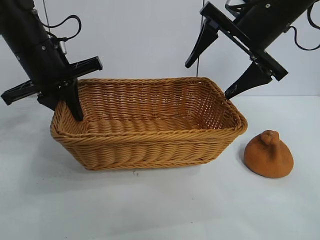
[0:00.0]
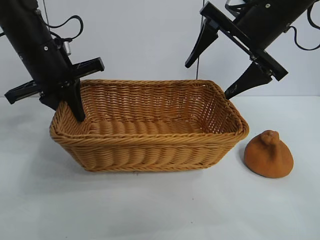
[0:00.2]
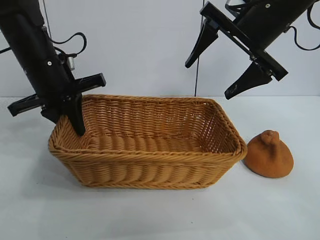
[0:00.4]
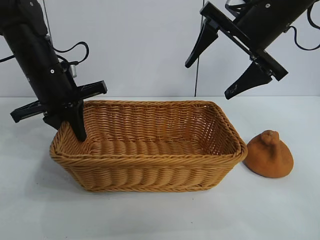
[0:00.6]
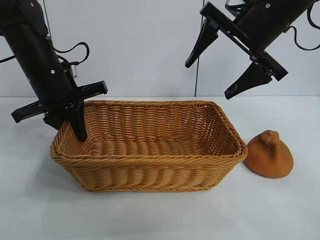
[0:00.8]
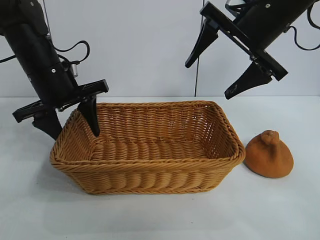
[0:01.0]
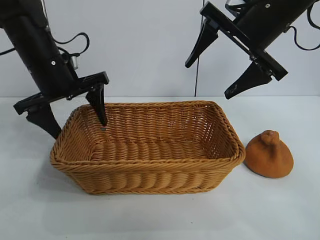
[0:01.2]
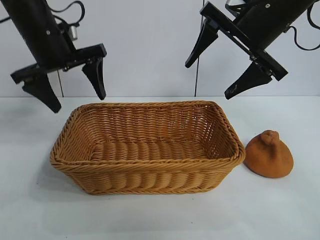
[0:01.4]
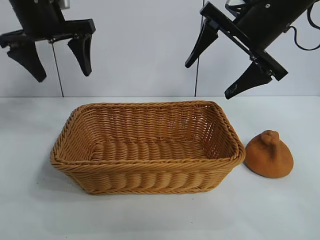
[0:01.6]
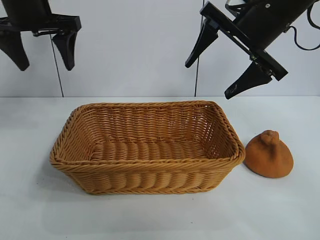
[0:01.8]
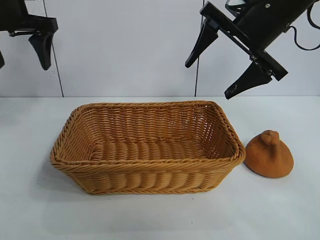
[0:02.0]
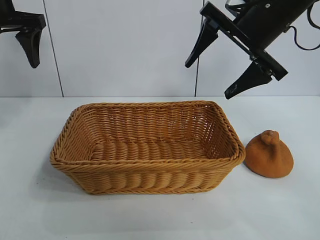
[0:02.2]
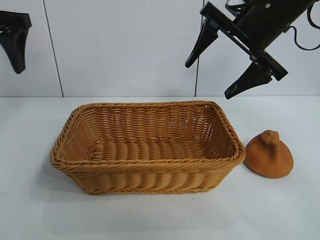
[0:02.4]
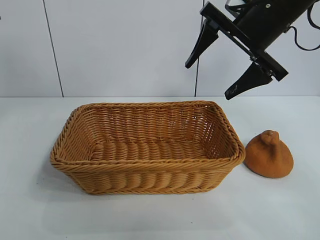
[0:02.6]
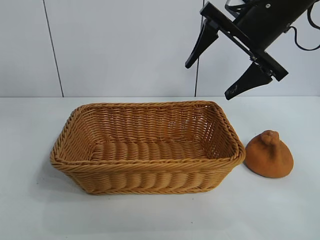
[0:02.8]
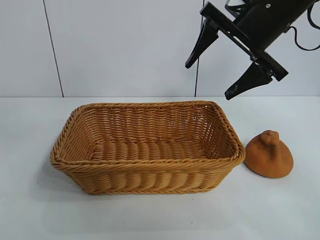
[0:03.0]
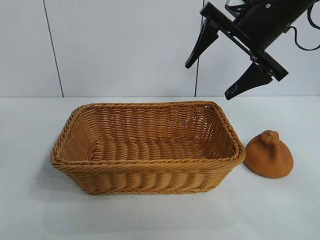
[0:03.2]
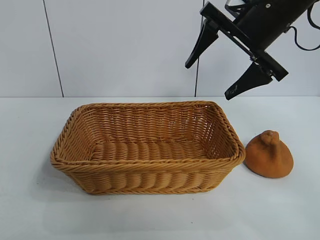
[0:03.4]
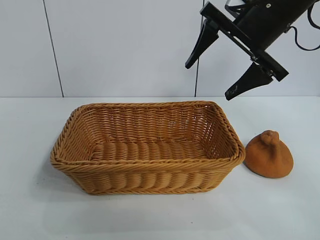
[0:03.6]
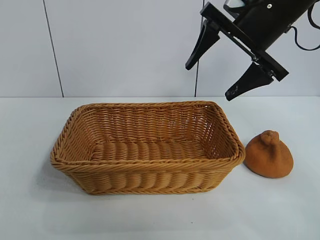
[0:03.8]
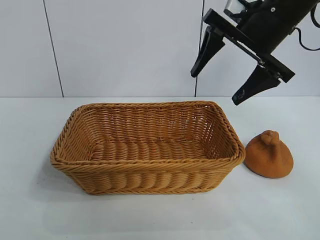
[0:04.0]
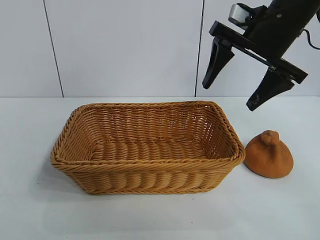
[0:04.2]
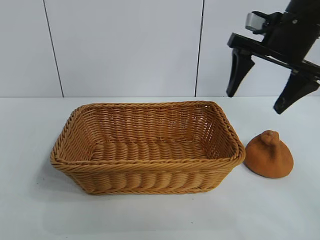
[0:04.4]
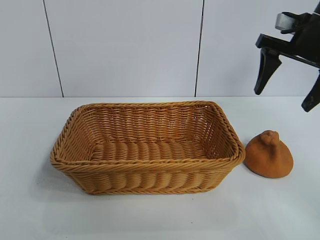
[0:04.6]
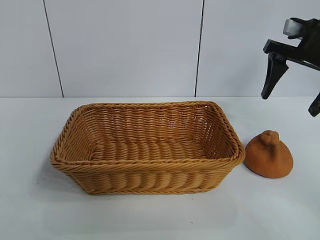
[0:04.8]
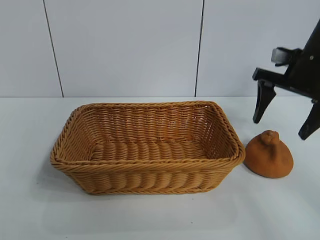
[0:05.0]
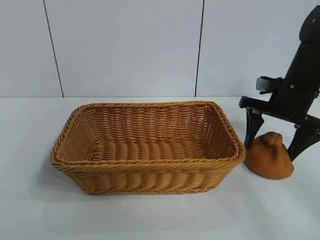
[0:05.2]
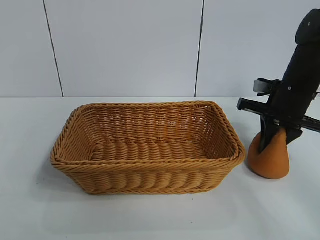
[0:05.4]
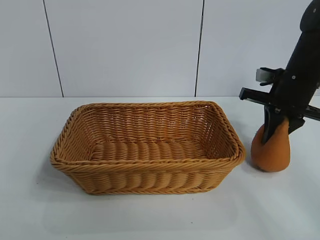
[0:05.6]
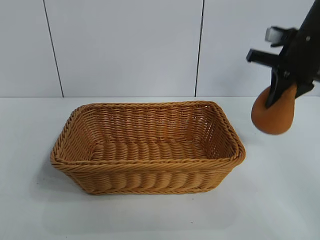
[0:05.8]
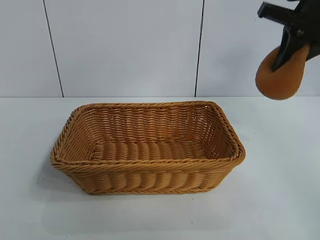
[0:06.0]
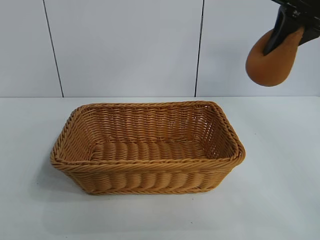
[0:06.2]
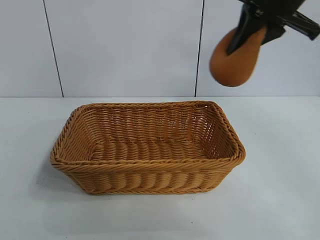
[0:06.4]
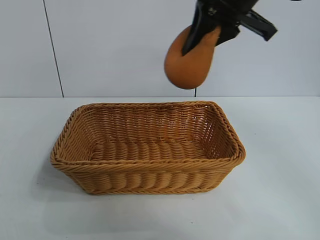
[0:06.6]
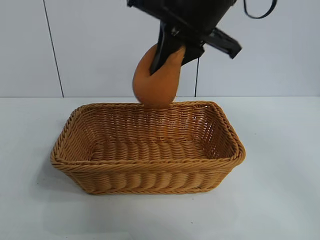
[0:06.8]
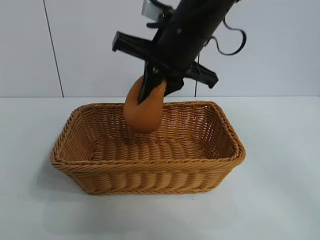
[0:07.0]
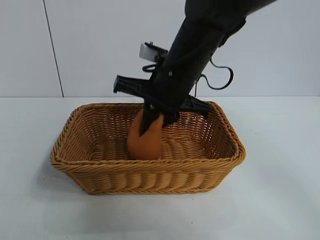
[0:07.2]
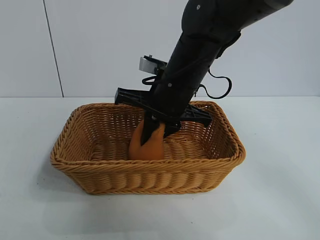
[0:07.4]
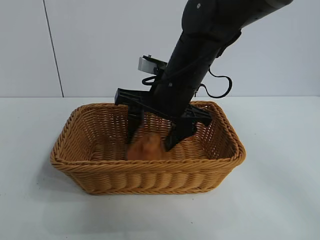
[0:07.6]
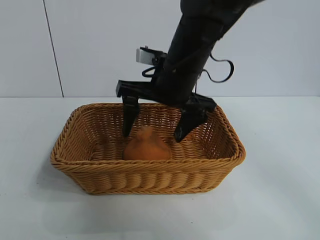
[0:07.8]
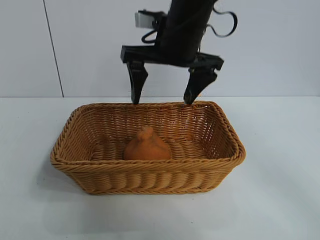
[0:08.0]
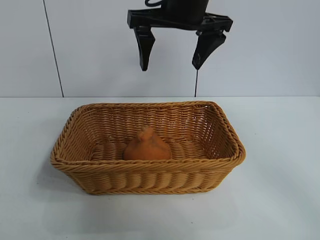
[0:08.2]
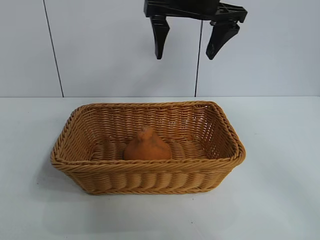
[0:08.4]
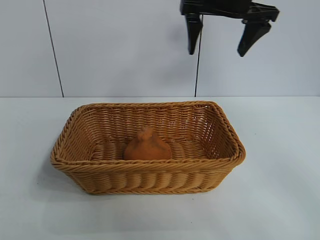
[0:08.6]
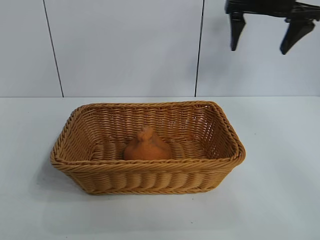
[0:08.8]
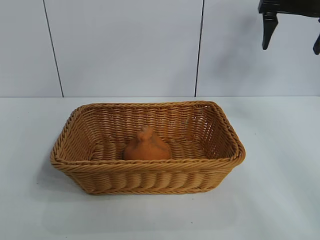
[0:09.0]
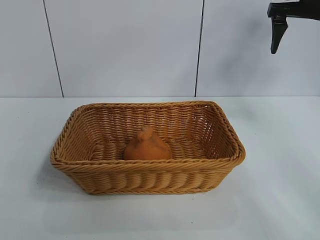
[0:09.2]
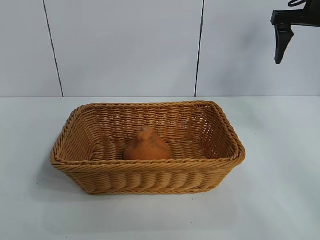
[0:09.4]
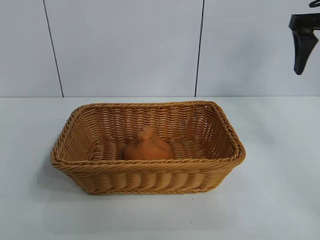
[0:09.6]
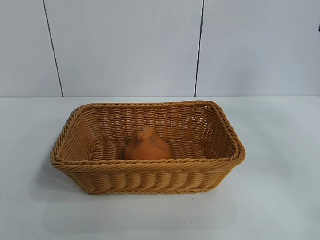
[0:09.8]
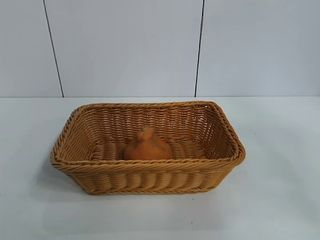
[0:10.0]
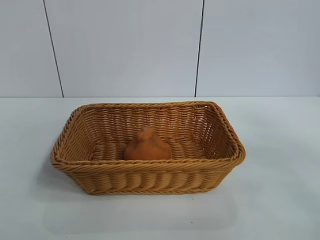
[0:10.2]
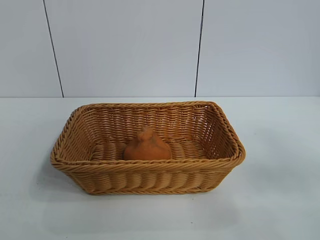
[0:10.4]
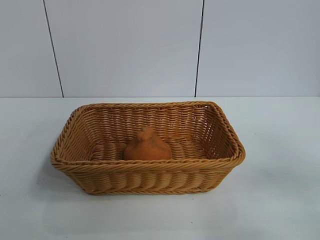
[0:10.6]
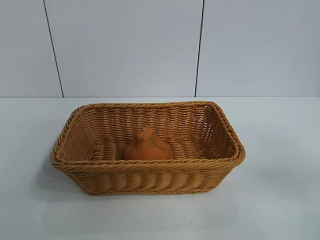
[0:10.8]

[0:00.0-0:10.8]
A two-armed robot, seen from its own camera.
Task of the whole recording: pick up the orange and put it into the basket.
Step, 0:00.0 to 0:01.0: Place the basket in the center of view with left gripper.
Step, 0:01.4 to 0:05.2: Grasp the orange with right gripper.
Step, 0:05.6 to 0:07.8: Place the orange in the basket with right gripper.

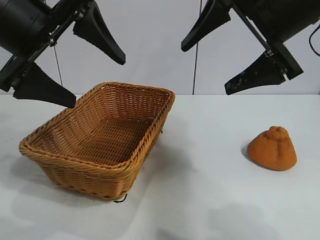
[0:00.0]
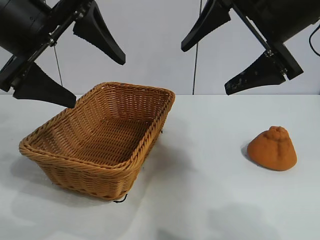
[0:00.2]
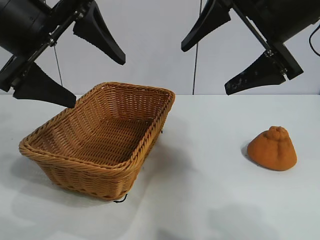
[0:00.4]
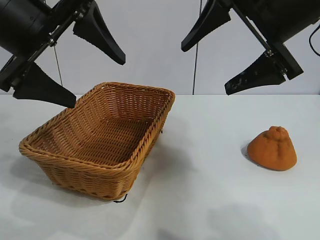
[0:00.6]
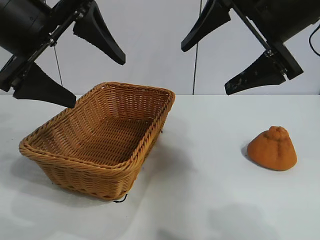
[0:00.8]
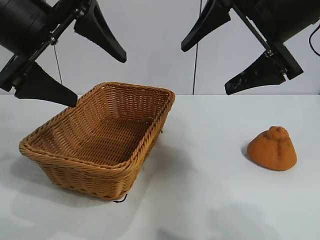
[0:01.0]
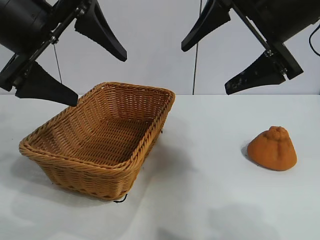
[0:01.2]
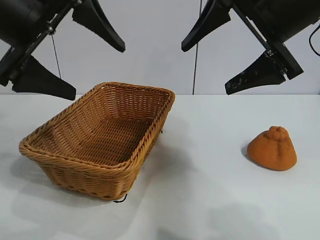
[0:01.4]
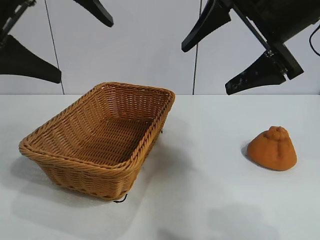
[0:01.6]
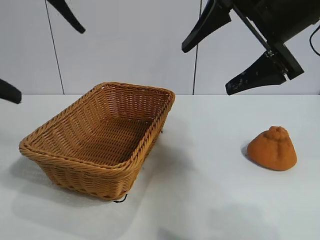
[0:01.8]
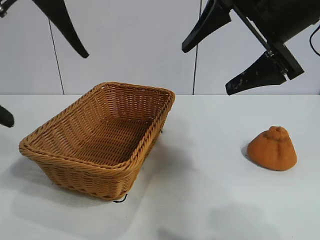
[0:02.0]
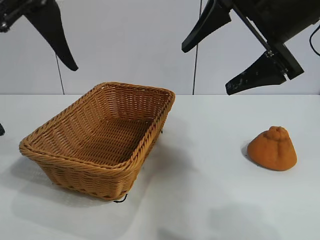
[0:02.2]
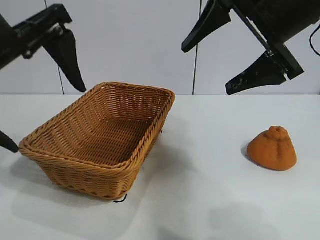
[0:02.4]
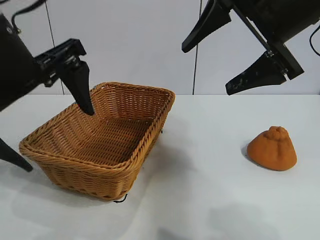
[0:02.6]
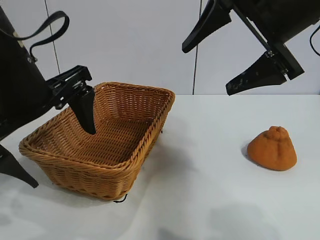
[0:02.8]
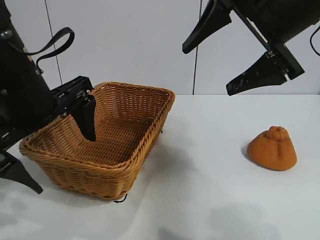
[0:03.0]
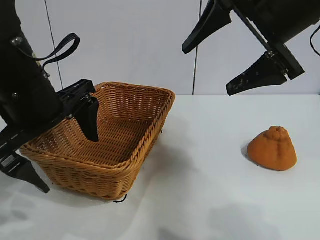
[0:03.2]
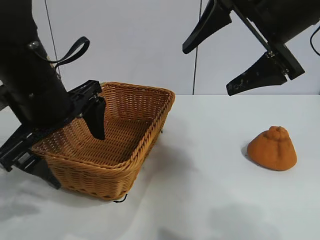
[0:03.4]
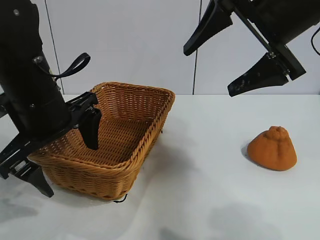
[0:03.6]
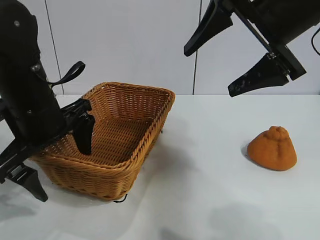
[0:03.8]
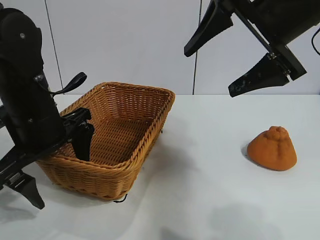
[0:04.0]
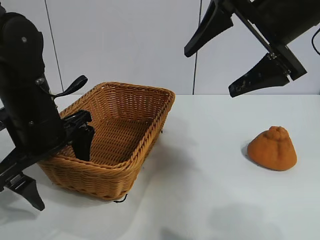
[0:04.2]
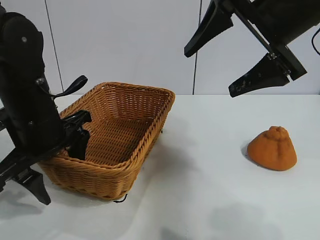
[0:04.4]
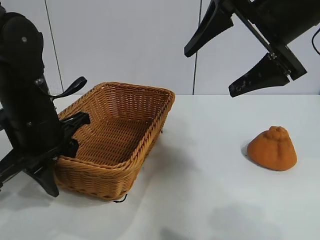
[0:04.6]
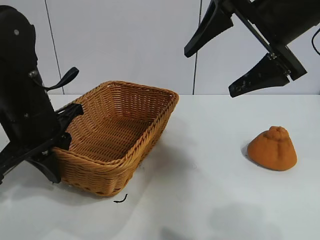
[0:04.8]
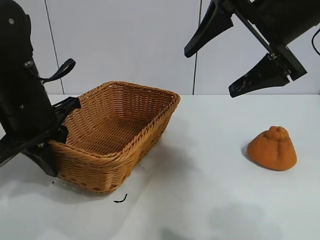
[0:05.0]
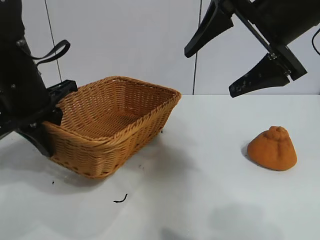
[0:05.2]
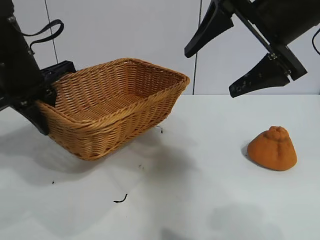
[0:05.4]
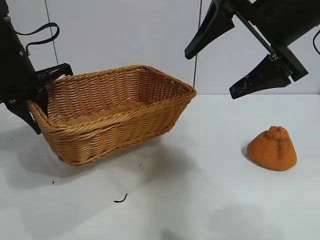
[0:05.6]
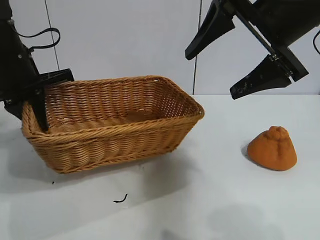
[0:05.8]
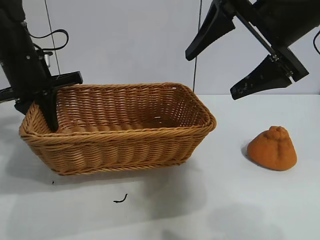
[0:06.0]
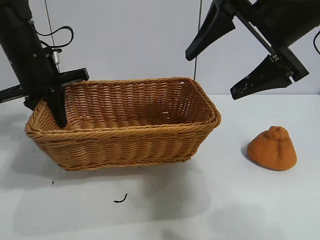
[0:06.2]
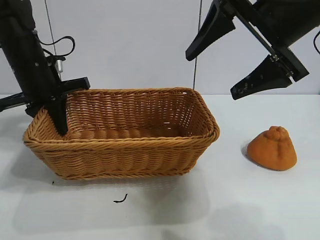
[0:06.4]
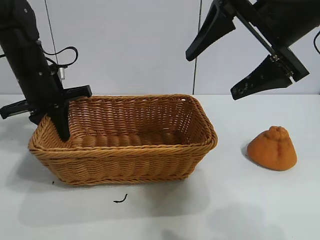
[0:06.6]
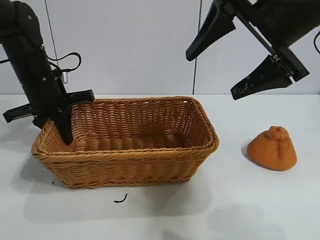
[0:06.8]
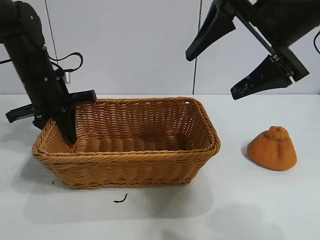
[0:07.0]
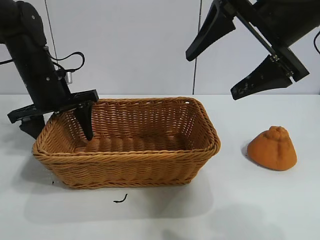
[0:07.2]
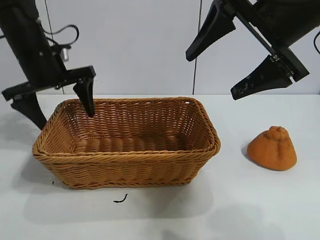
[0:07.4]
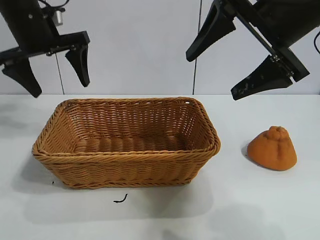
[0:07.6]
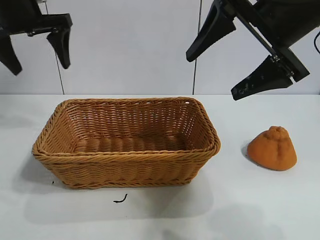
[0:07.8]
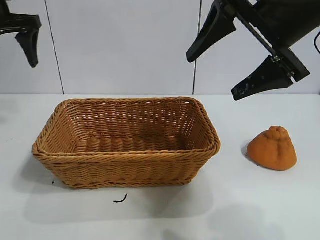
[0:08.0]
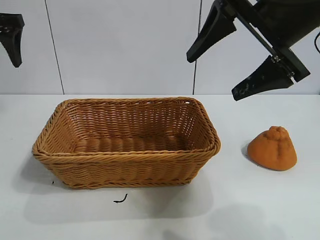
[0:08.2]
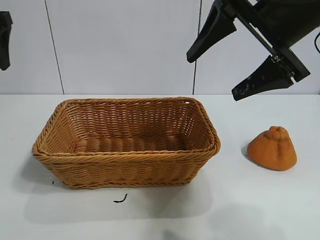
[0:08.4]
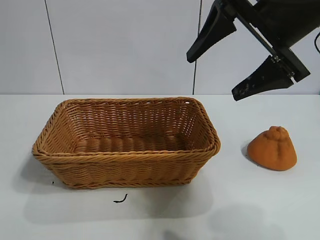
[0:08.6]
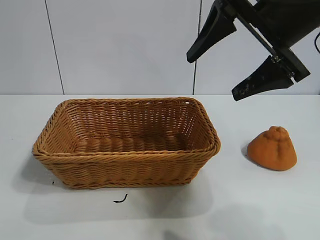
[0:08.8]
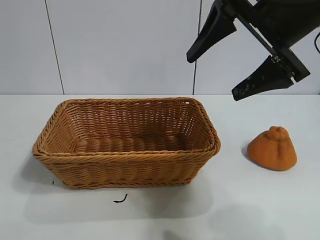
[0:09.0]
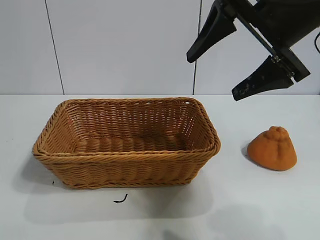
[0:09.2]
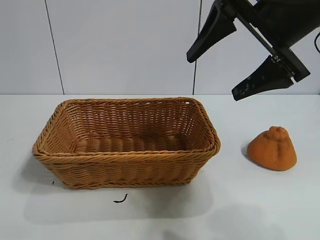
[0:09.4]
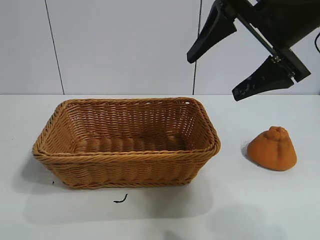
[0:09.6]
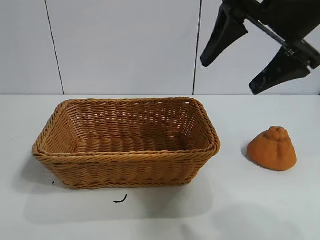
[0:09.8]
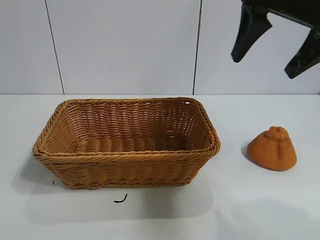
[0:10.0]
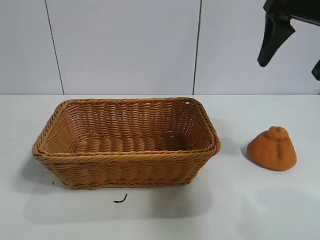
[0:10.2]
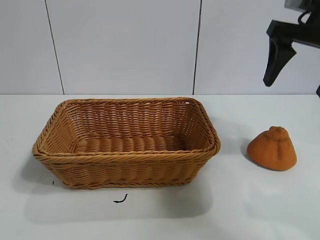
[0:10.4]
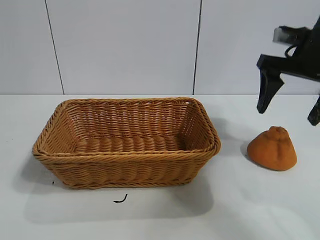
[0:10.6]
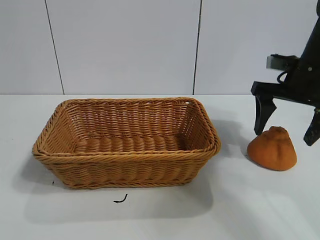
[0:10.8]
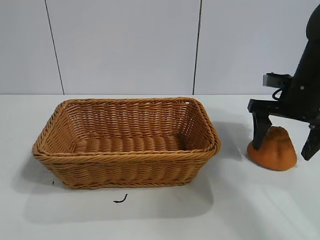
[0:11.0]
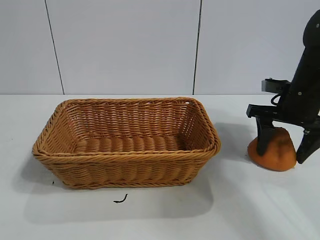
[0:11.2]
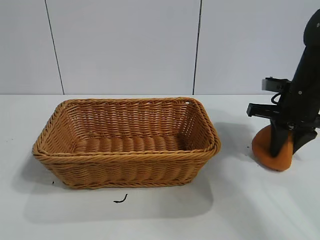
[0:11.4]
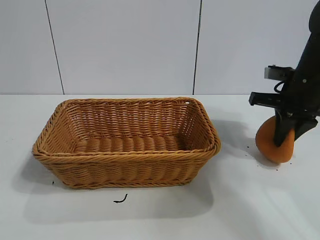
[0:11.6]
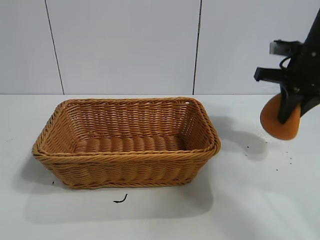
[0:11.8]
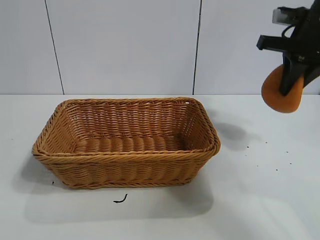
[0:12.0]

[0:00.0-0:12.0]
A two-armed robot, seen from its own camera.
Task of the whole recording: pick up the orange and put it into the basket.
Step, 0:01.0 to 0:04.8: Grasp the basket with left gripper.
Step, 0:05.0 to 0:07.2: Place the basket in the center of view with left gripper.
Step, 0:07.4 to 0:11.6: Grasp the orange with right gripper.
